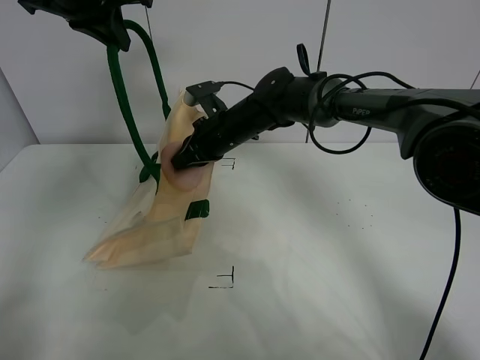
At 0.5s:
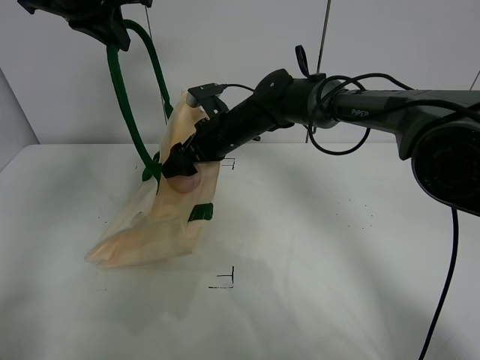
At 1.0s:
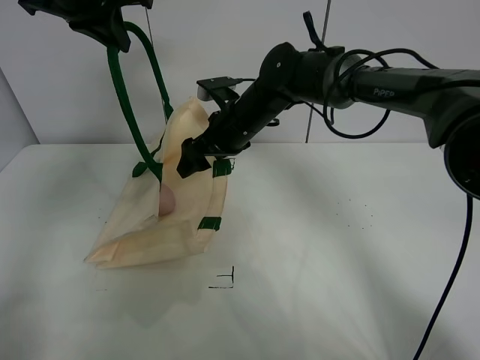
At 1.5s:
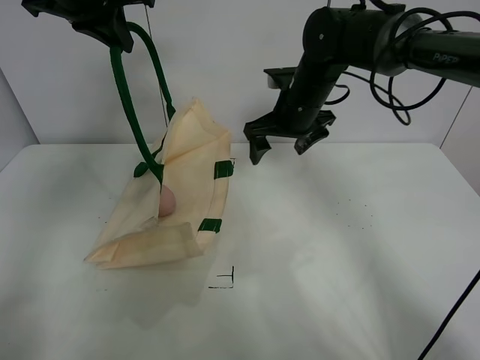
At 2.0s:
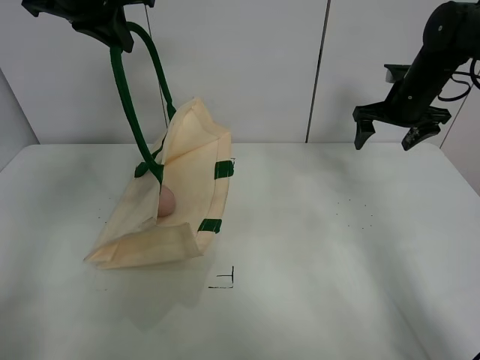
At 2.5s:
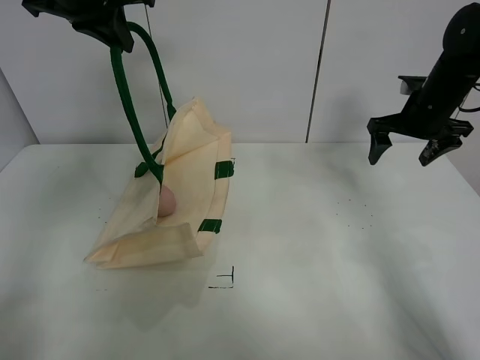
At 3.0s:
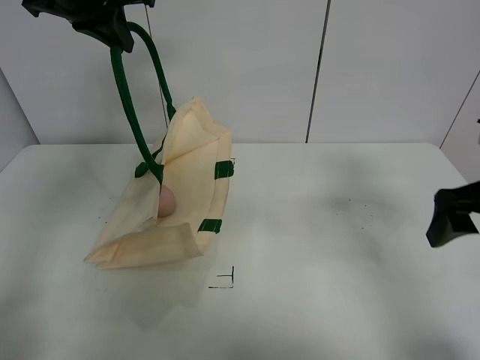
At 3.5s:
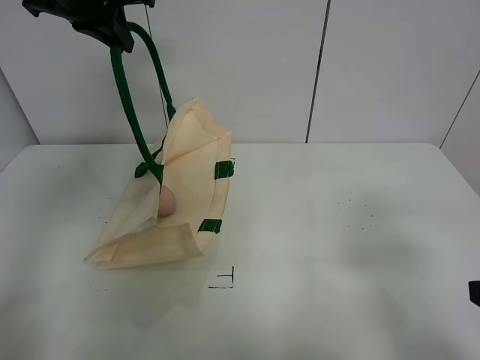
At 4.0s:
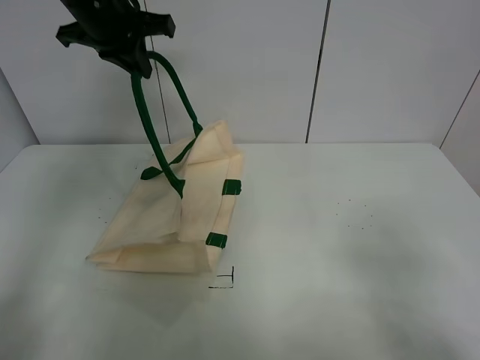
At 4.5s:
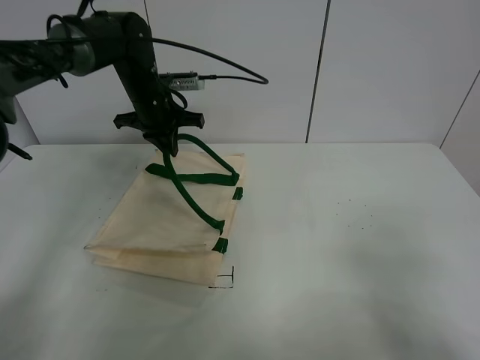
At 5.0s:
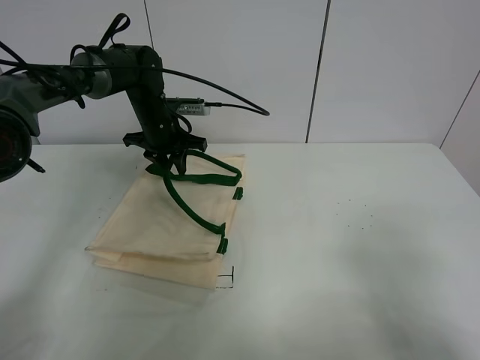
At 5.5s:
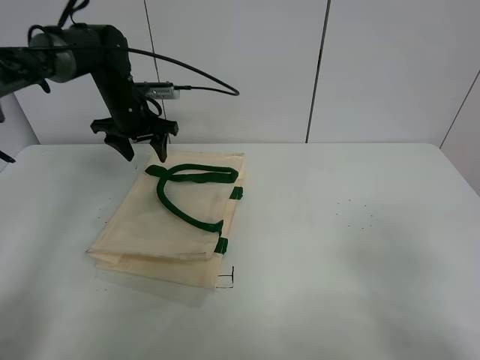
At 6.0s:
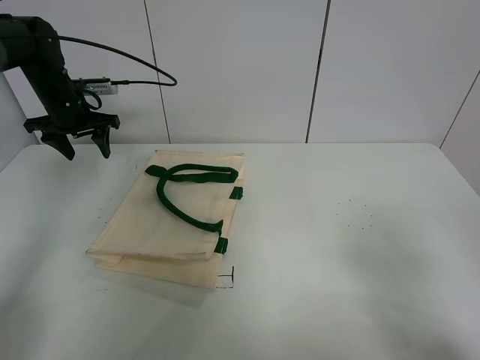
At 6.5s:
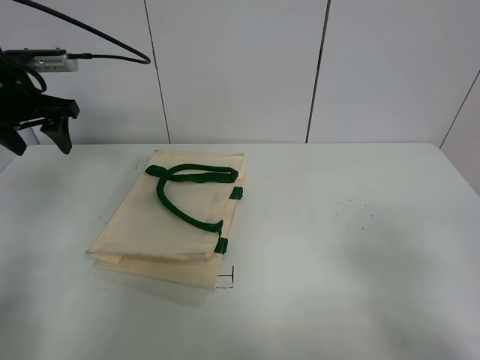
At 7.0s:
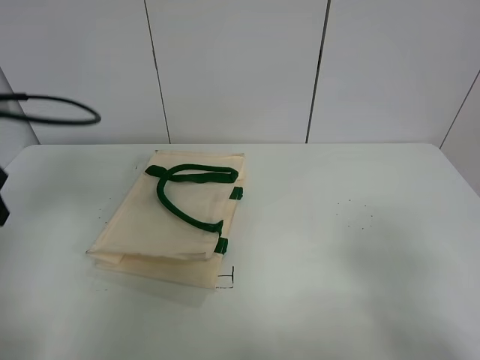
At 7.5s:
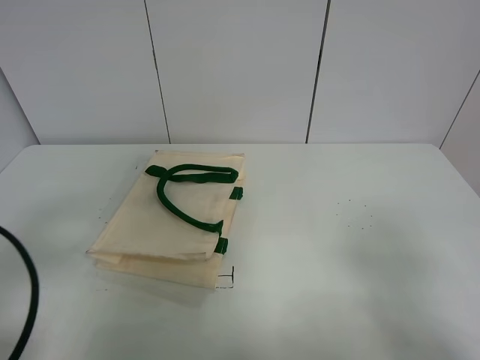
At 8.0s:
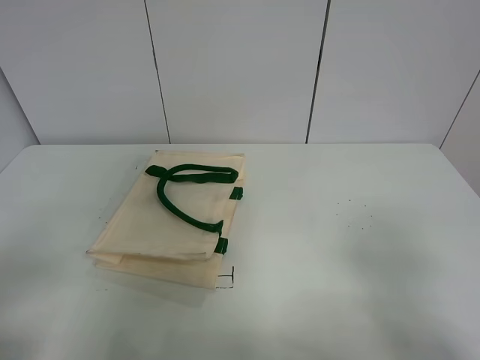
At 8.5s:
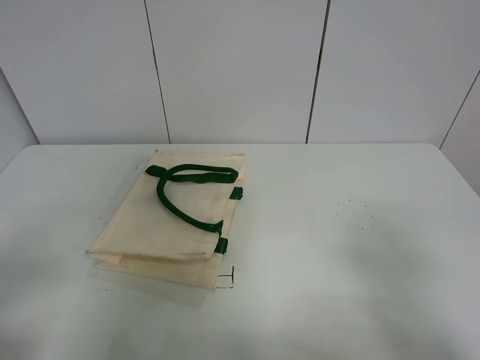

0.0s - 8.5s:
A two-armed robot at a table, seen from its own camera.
Task of the whole recording: open the white linen bag and put the peach in the bag.
Step, 1.0s - 5.0s: Put down the handbag with left gripper.
0.0s - 2.0s: The right gripper is displaced to the right by roughly 25 cm, and opens.
2.0s - 4.0s: The right gripper shifts some 40 cm backward.
4.0s - 6.5s: The left gripper shifts some 20 cm to the left and downward, and opens.
6.5s - 8.5s: The left gripper heads backward, covering approximately 40 cm.
